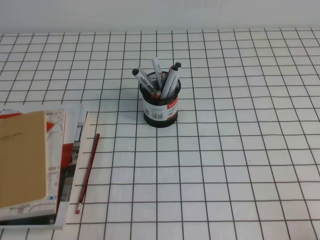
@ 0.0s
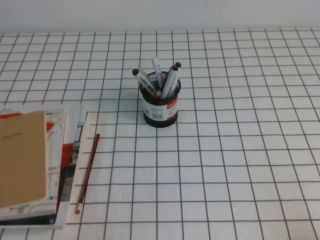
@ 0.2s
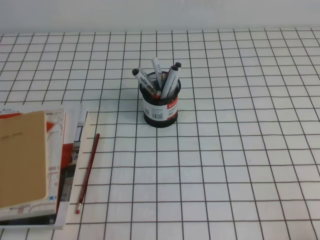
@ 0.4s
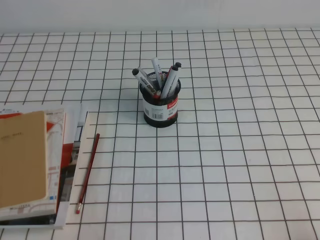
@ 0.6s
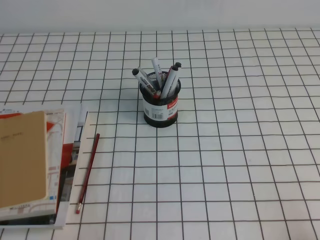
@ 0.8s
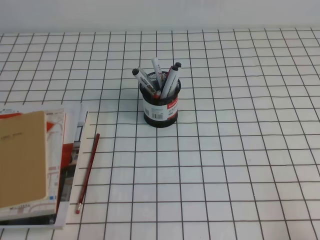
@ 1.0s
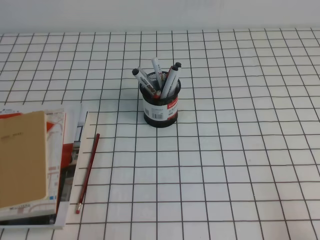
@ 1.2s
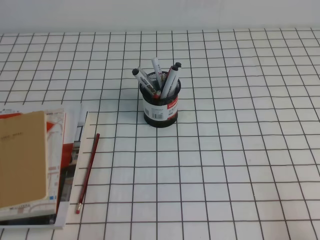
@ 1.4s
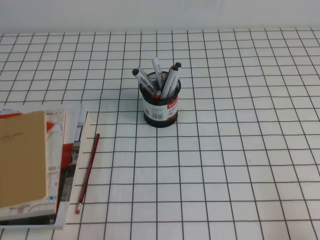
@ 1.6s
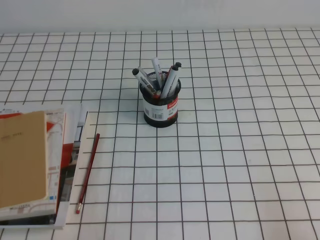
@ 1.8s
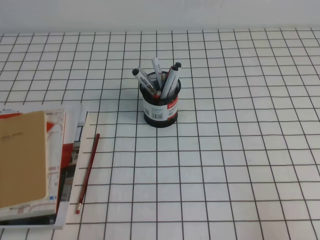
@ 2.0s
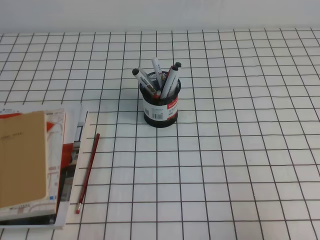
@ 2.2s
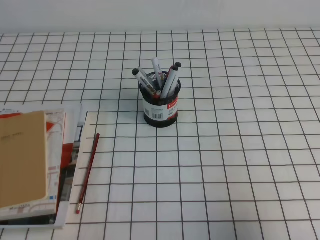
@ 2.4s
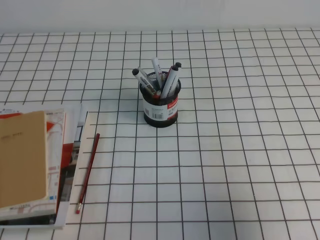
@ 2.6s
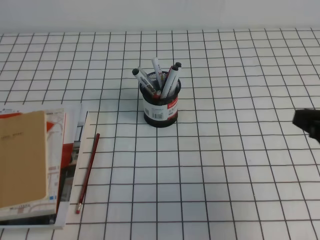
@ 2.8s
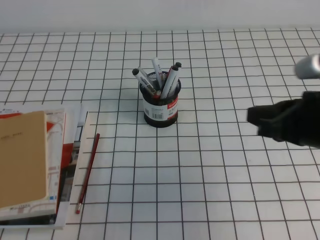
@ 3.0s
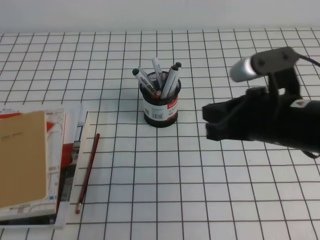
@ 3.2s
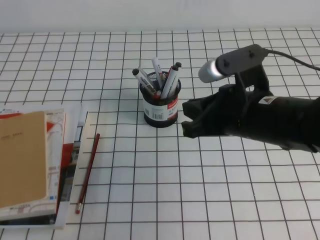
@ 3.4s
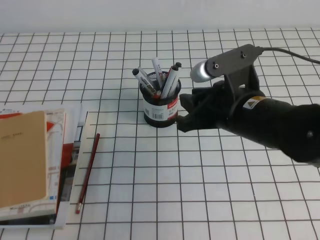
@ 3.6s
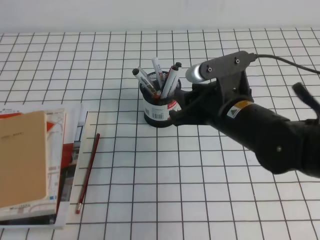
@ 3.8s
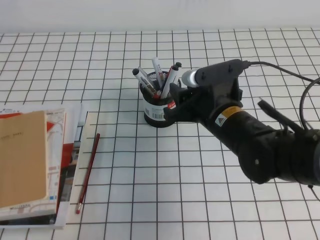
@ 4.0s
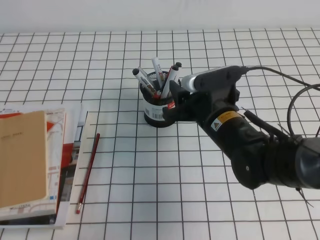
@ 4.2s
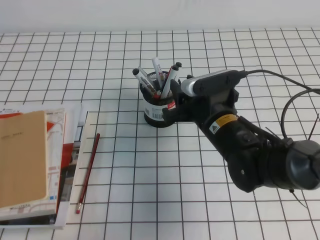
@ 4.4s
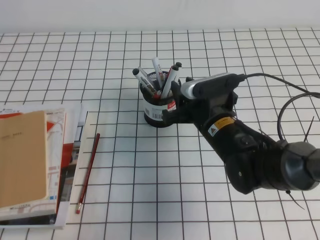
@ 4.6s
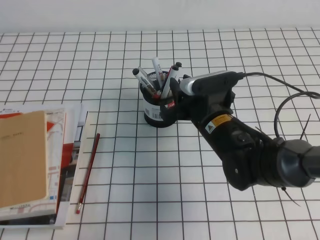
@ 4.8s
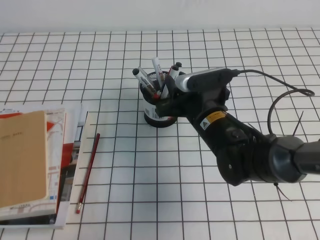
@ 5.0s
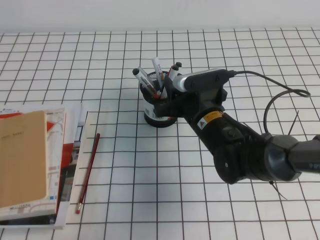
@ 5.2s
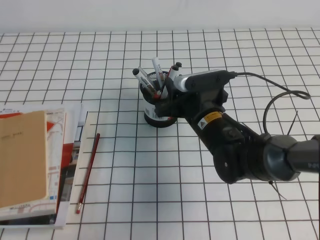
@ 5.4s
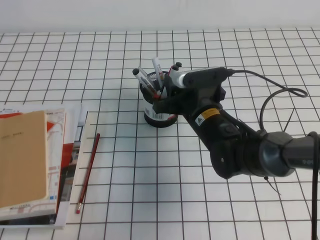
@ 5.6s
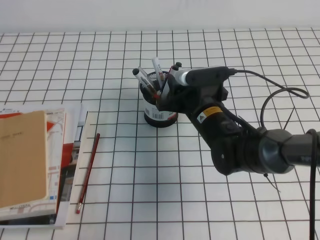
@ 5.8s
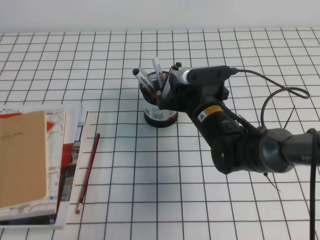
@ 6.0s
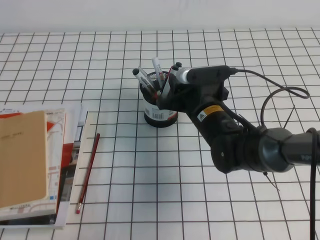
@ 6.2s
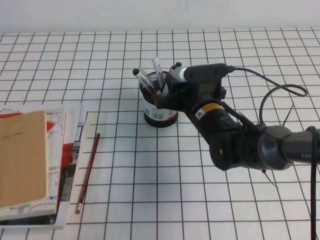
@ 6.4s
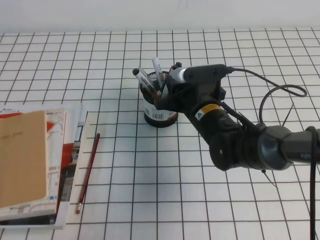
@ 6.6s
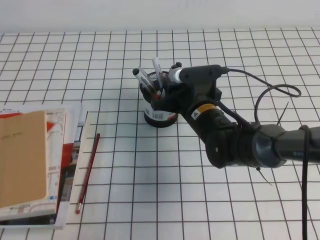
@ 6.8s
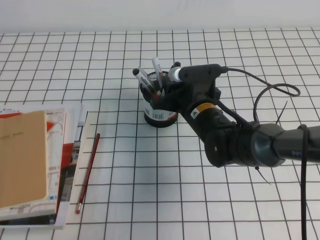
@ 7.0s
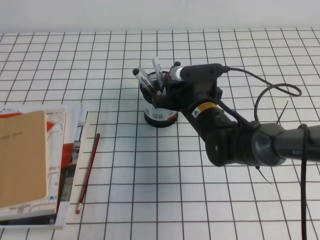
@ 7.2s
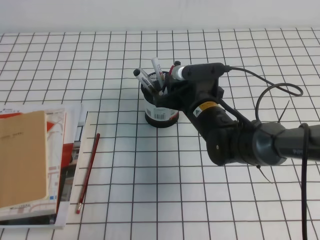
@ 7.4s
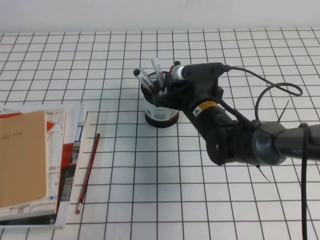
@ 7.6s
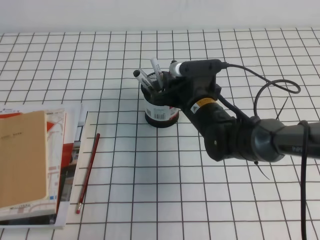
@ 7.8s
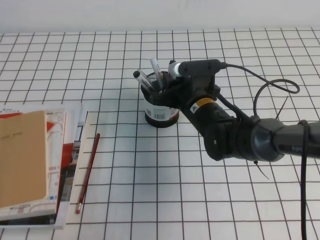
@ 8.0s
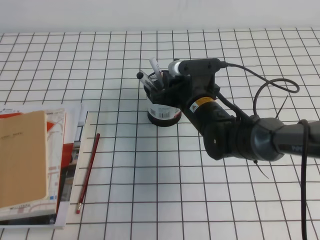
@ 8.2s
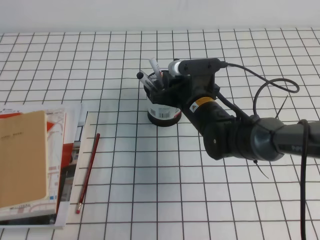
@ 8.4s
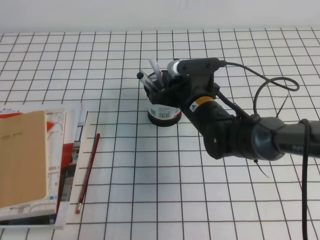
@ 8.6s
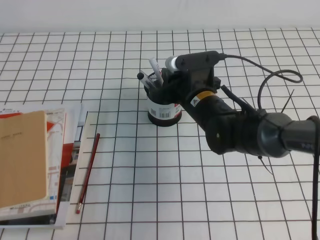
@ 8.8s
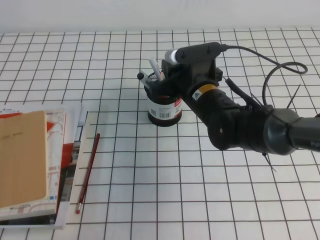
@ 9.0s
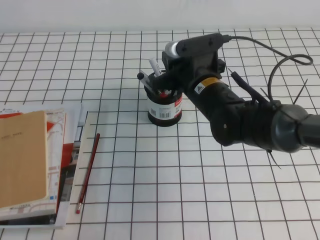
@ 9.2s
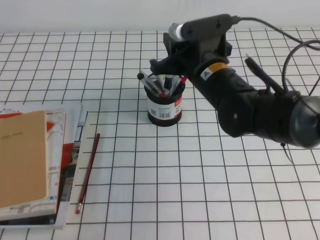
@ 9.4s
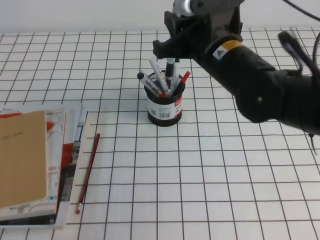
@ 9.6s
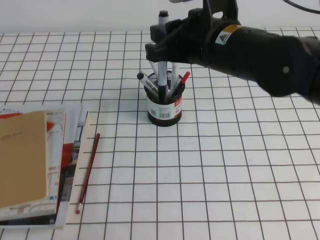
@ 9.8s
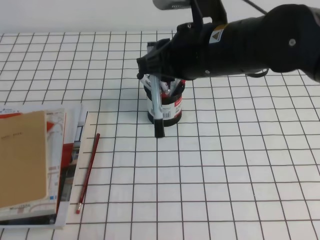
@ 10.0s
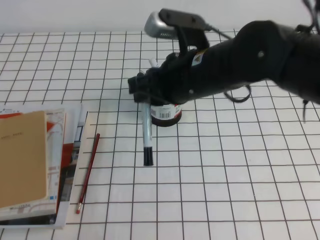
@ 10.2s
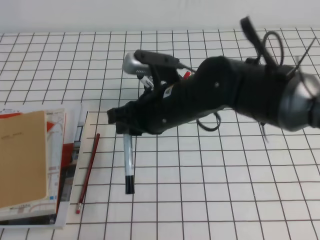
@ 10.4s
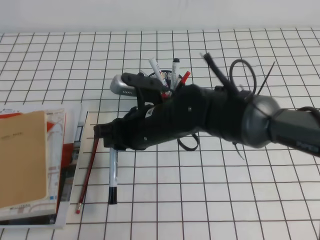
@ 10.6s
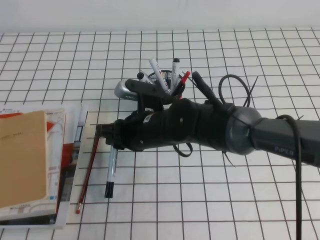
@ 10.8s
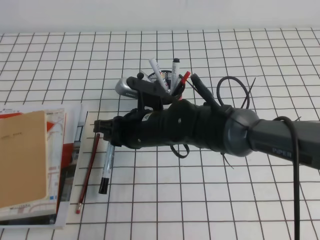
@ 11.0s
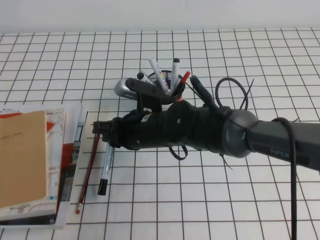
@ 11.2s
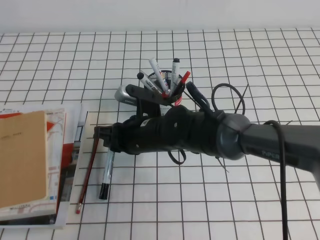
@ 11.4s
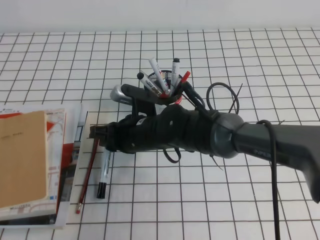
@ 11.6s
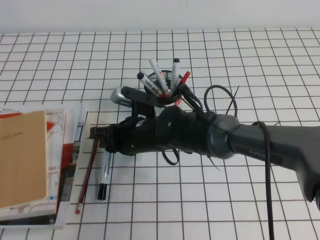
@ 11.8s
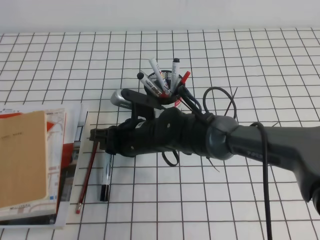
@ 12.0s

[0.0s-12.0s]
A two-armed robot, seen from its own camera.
1.6s to 3.0s: The right gripper goes approximately 20 cm forward, upward and to the left.
3.0s to 4.4s: The right gripper is displaced to the left, forward and downward by approximately 20 cm, and opens up.
4.4s to 6.0s: The grippers move only a little.
6.0s to 9.0s: There are only small adjustments of the grippers.
9.0s to 10.4s: The right gripper is displaced backward and upward by roughly 10 cm.
10.4s to 12.0s: The right gripper is displaced downward and to the left by some 15 cm.

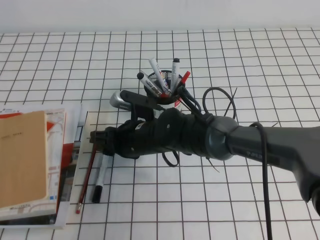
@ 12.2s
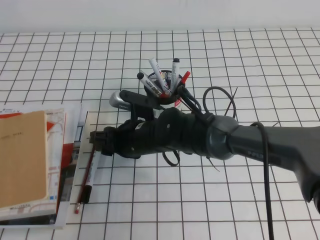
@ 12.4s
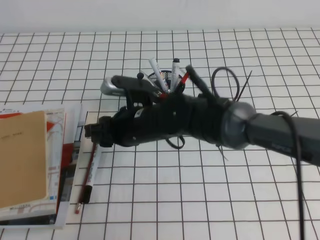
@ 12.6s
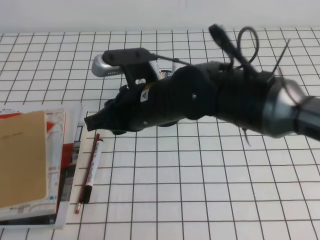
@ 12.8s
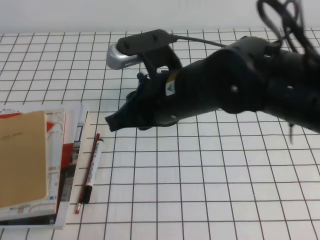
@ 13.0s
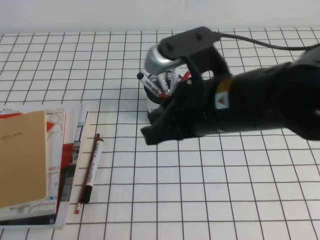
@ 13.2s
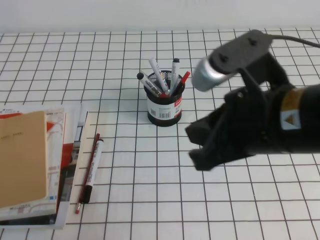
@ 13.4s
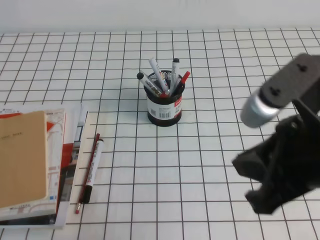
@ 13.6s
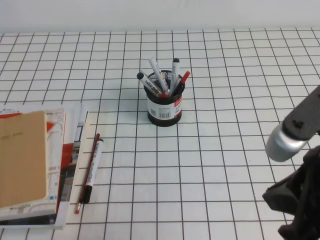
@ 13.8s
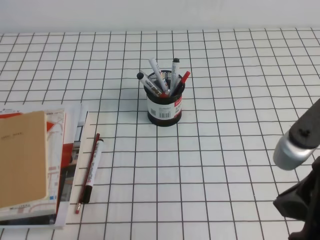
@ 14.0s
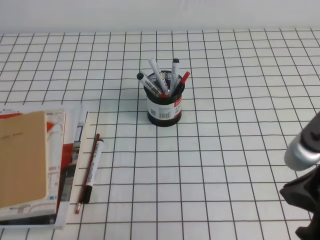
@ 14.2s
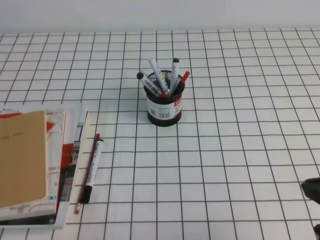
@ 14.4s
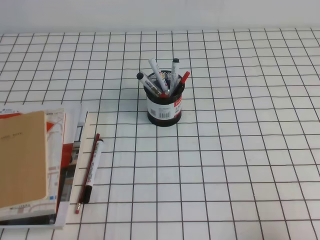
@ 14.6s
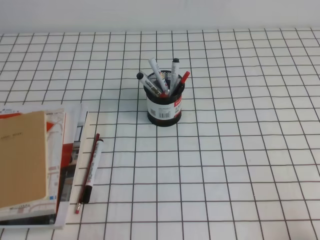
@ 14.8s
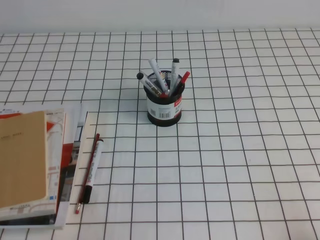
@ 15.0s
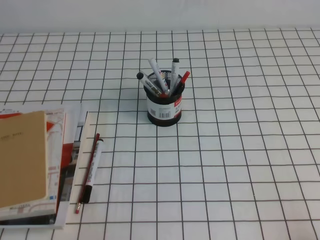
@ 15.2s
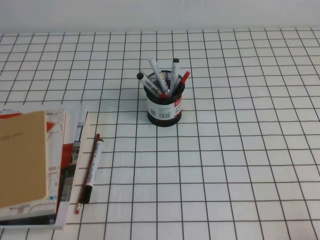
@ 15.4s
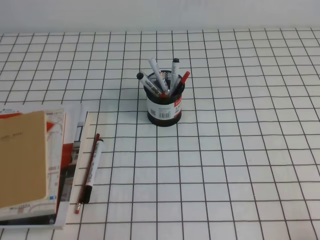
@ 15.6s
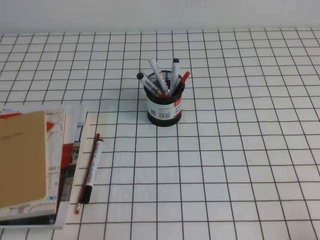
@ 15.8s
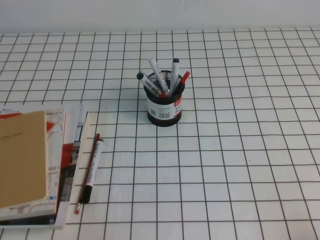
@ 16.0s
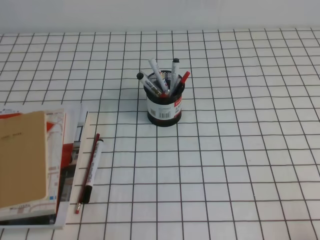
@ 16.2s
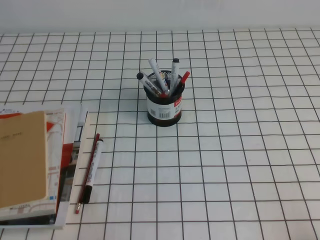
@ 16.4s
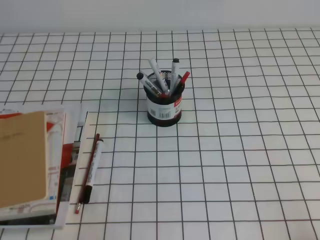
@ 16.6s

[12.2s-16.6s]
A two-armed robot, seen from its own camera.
Step, 12.2s to 16.6s: Pick up the pen from the pen holder.
12.2s to 13.6s: The right gripper heads to the right, upward and backward, covering roughly 30 cm, and closes up.
13.6s to 15.2s: The right gripper moves downward, to the right and backward, about 25 cm.
15.2s to 16.6s: Both grippers stay about where they are.

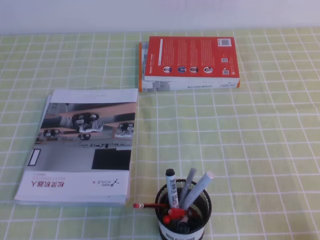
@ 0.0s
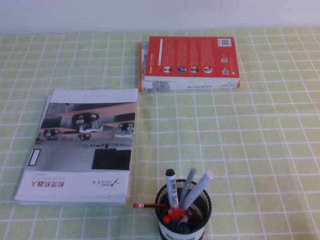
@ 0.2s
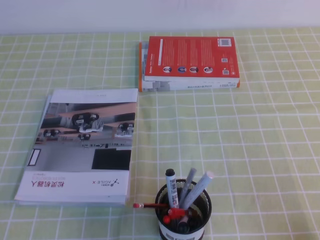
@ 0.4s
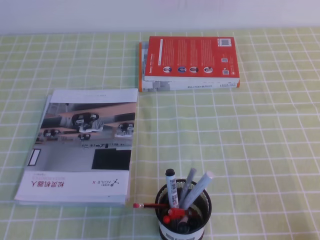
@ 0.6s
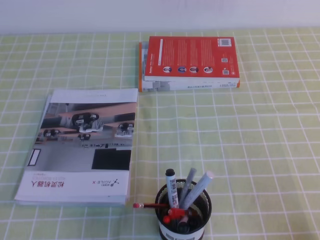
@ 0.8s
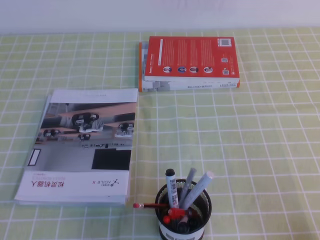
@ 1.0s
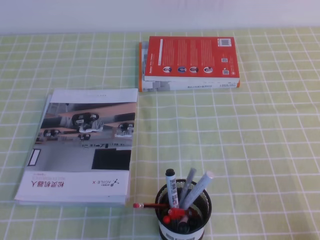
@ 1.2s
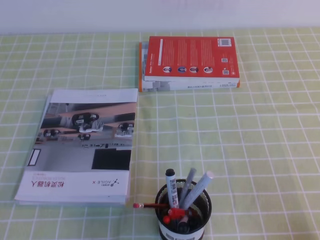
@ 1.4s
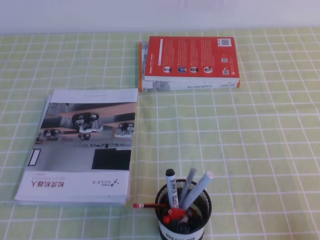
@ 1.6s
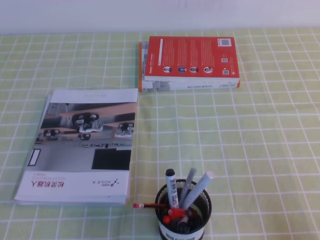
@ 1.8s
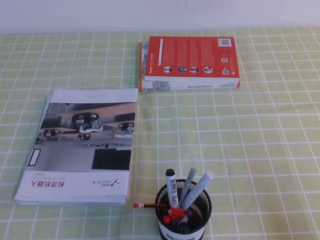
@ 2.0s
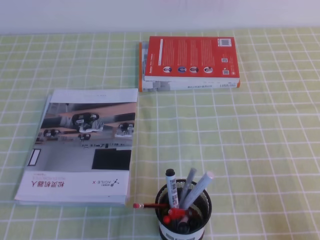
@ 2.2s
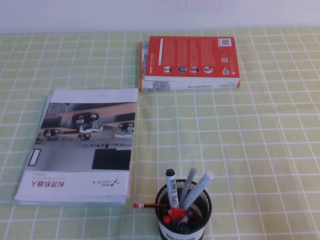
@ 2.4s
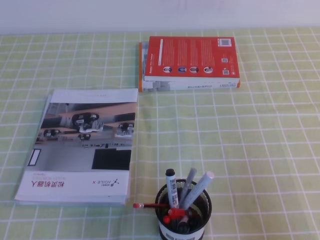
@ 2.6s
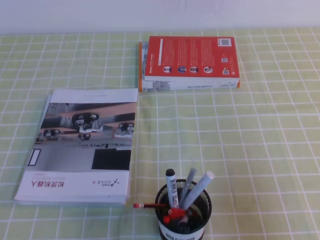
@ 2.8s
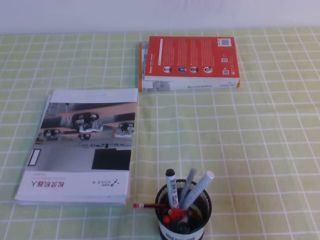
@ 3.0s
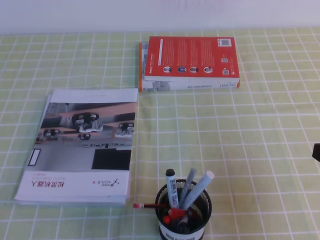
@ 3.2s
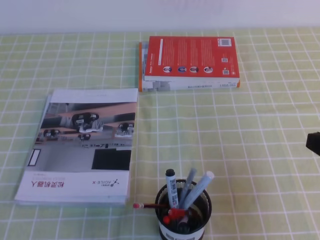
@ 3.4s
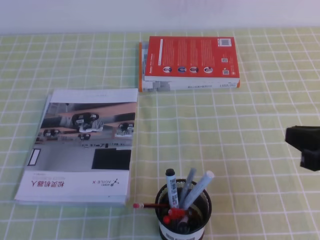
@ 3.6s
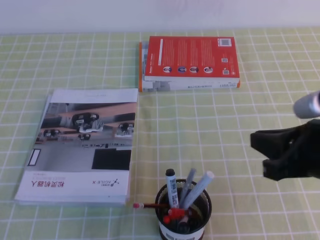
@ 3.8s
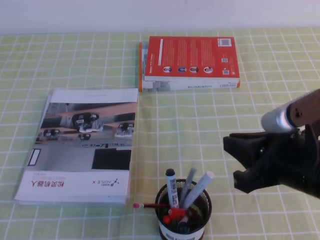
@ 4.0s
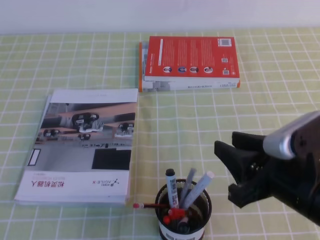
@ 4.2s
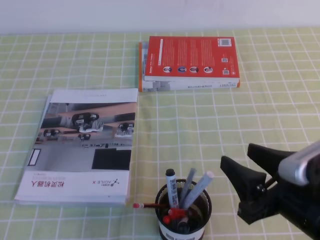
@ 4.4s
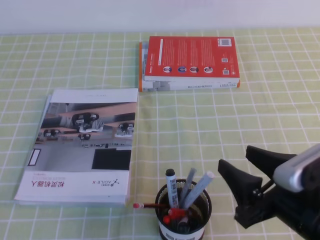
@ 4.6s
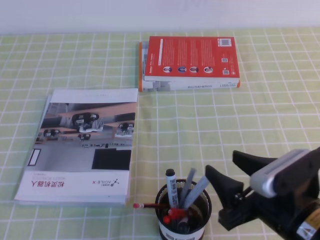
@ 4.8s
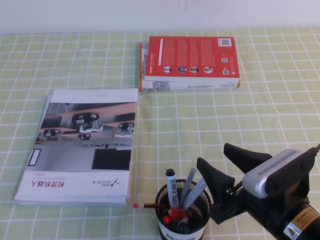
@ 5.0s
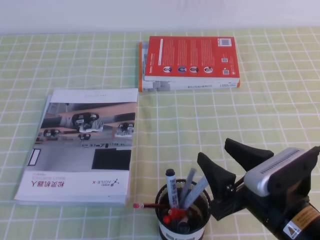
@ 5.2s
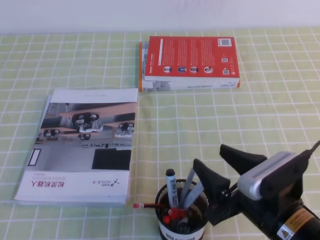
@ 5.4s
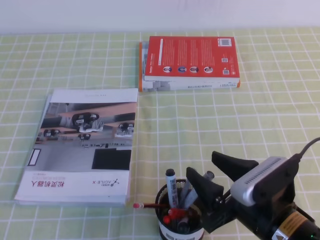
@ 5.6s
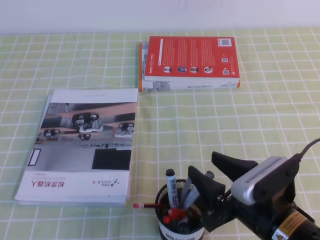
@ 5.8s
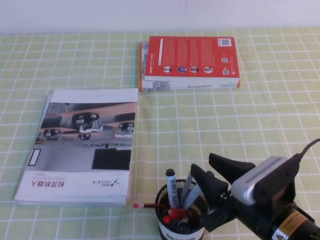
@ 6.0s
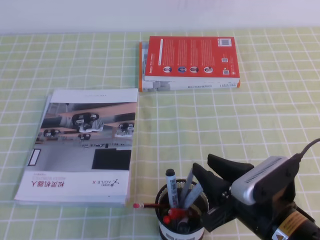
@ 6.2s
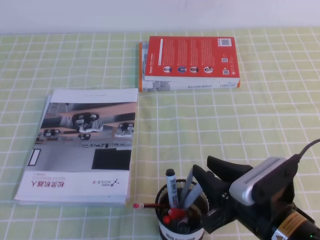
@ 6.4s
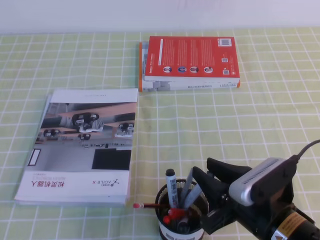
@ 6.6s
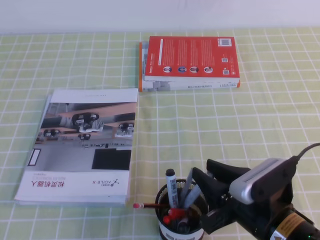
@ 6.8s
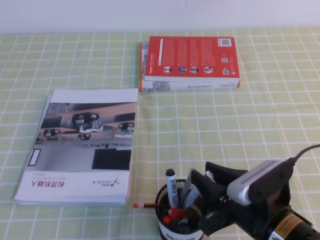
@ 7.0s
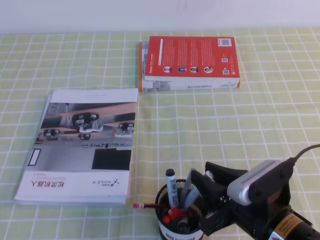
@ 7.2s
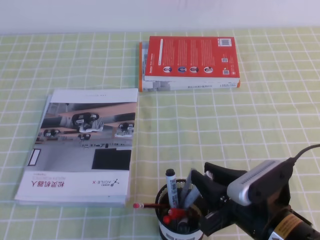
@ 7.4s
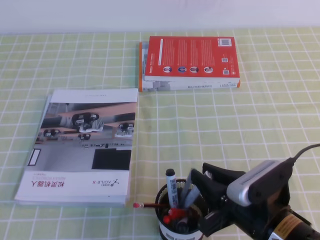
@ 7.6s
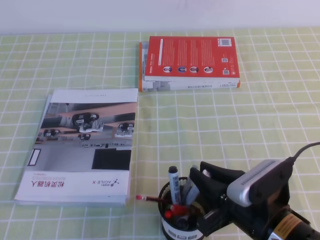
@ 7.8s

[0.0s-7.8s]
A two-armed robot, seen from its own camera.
1.6s to 3.2s: The right gripper shifts roughly 15 cm upward and forward.
3.2s to 4.6s: The right gripper goes some 10 cm to the left, and opens.
4.6s to 6.2s: The right gripper shifts by some 5 cm, and closes up.
6.2s to 7.8s: Neither gripper changes place.
